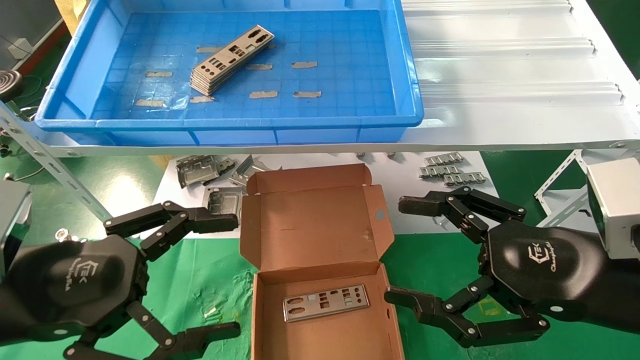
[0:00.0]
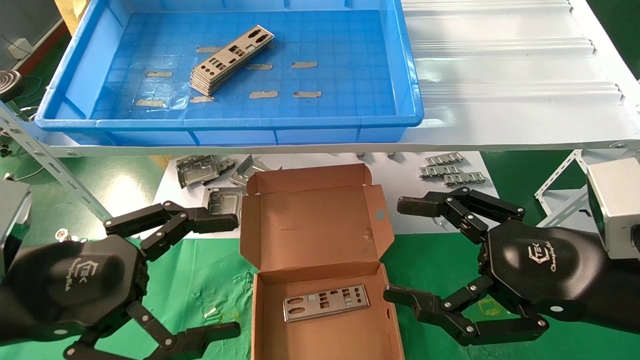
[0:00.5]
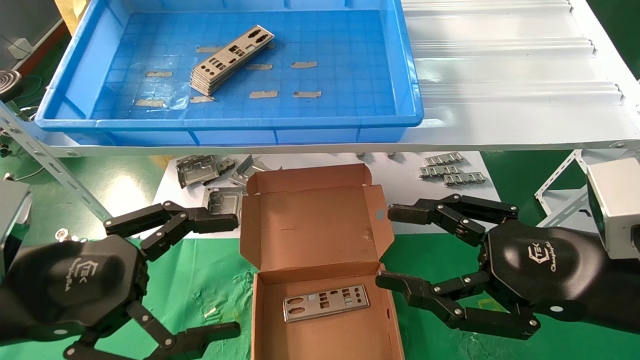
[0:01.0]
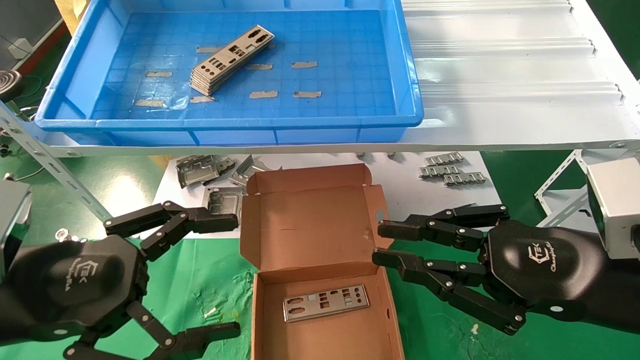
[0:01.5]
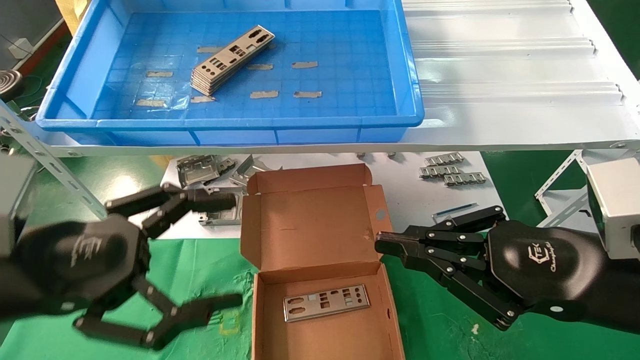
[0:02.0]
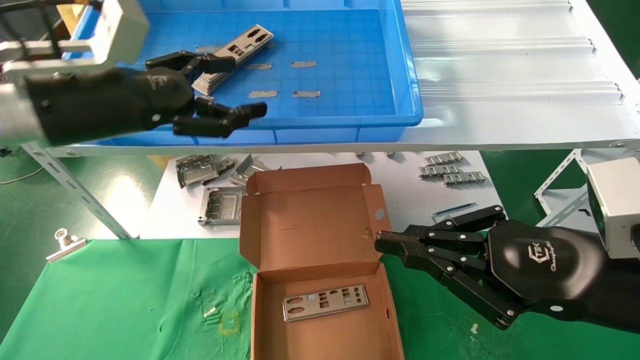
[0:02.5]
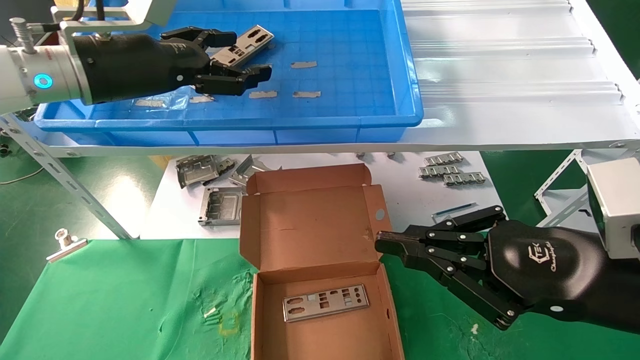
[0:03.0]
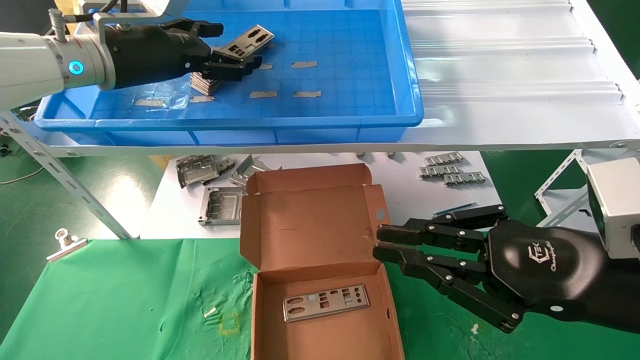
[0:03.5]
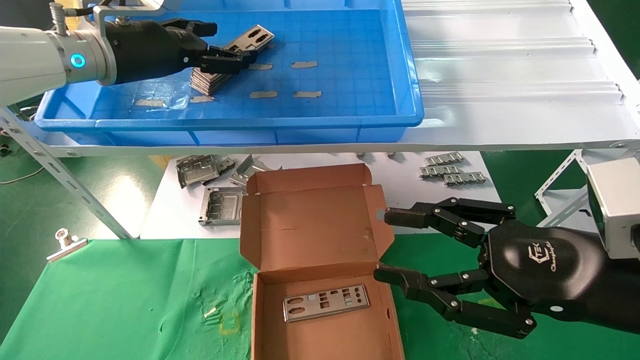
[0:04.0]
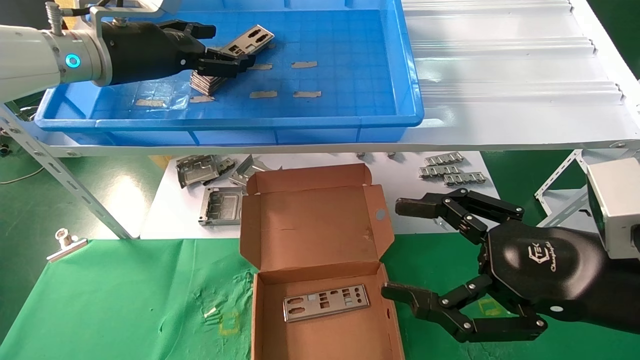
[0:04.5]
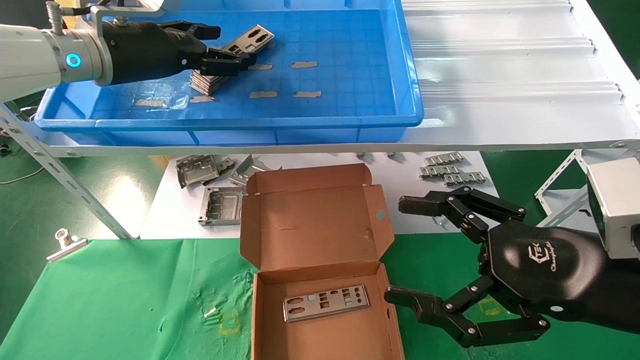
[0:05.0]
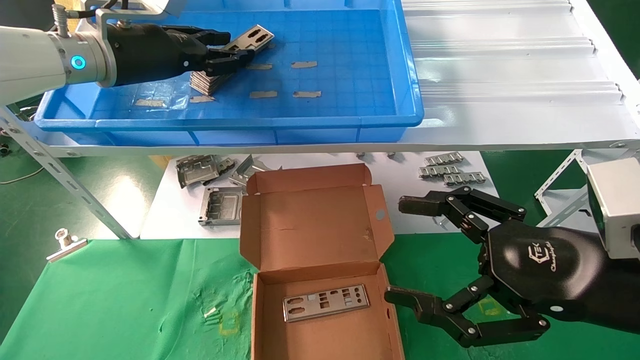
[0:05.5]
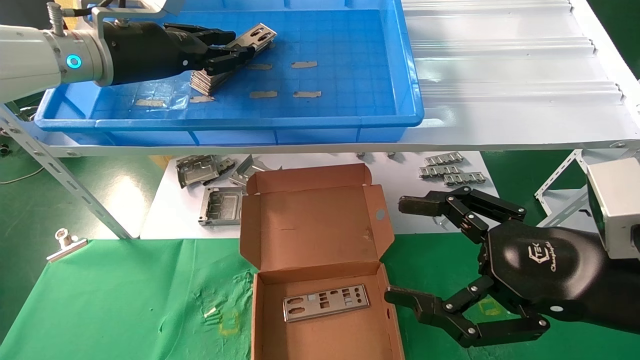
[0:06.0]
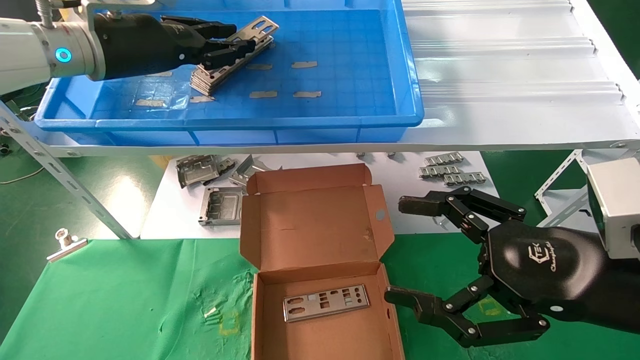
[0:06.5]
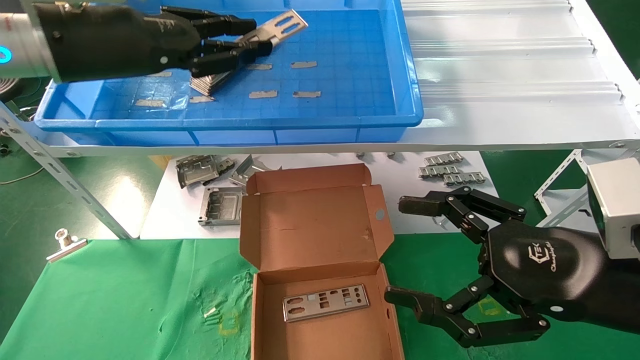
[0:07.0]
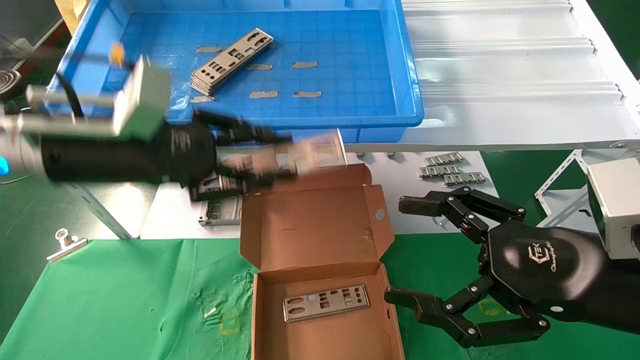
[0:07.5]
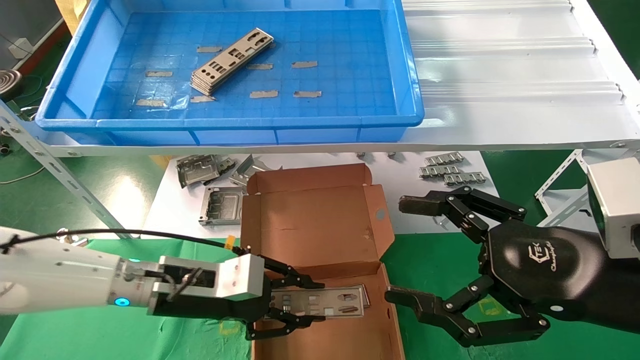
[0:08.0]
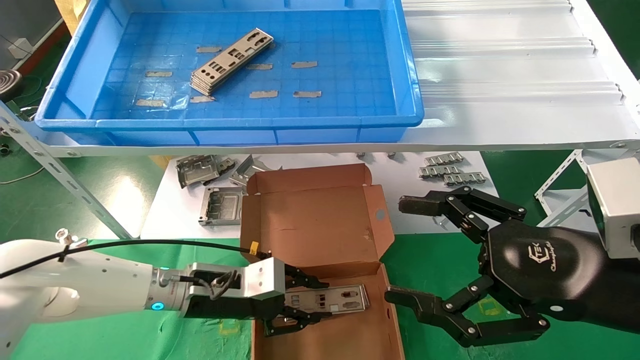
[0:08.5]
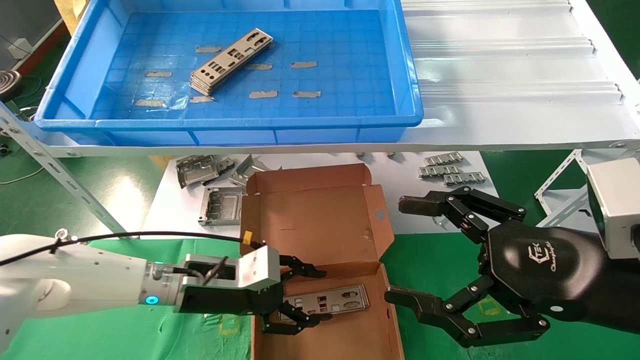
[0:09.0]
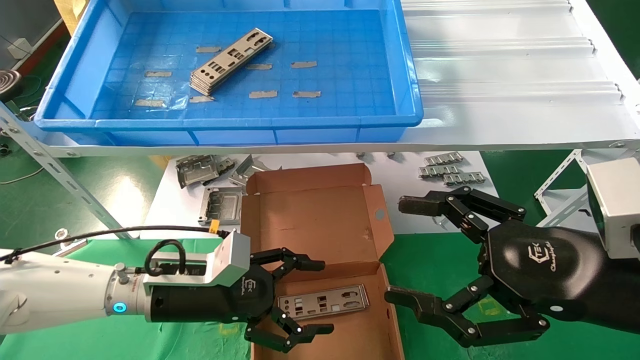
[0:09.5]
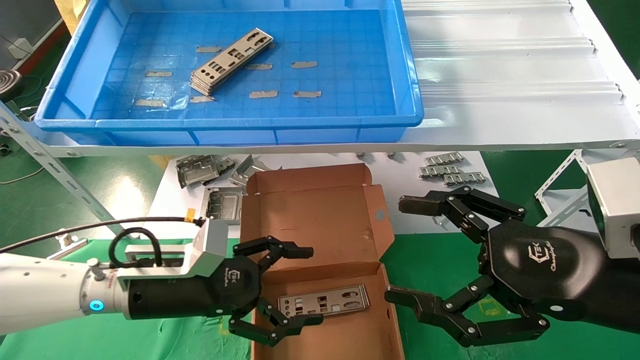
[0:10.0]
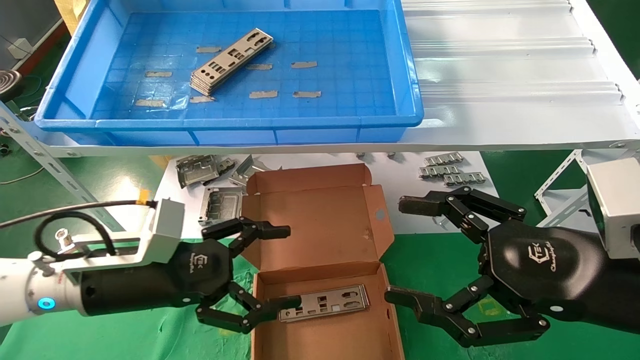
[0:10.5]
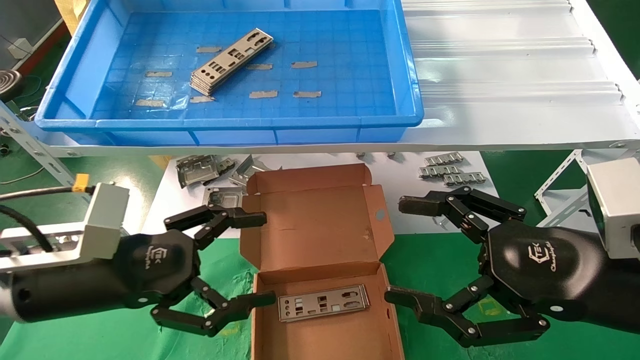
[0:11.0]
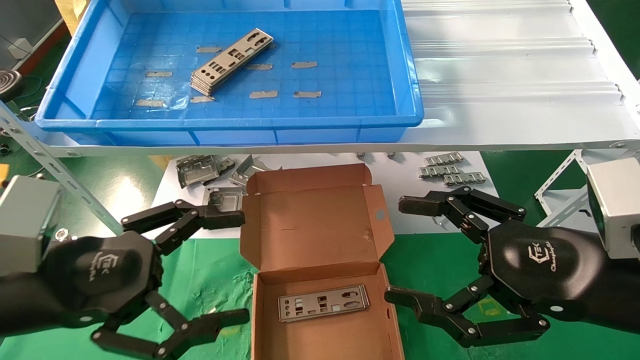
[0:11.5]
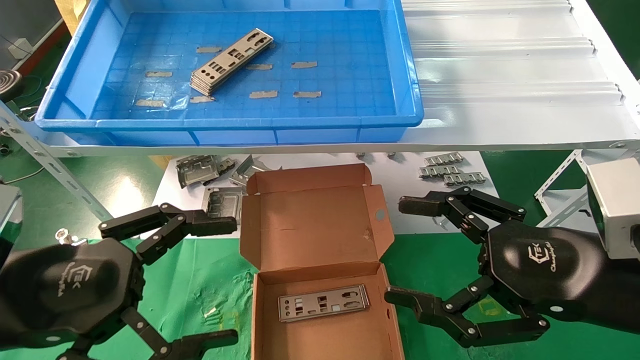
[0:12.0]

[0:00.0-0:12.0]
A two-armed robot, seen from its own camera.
Task of the whole recording: pick up the parts on the tray and put them in the cardboard box.
Step, 0:02.5 to 0:06.0: Pick up the IO bracket from the container box.
Step, 0:06.5 to 0:08.5: Place the IO bracket into the ingredient slot.
0:00.0 to 0:02.0: The right gripper closes.
0:02.0 to 0:04.0: The left gripper travels forward and upward by roughly 25 cm.
0:04.0 to 0:06.0: The right gripper opens its fingers; the left gripper closes.
0:06.0 to 0:08.0: The left gripper travels downward by about 25 cm.
0:08.0 to 0:10.0: The left gripper opens up.
0:10.0 to 0:12.0: The left gripper goes approximately 20 cm backward, upward and to the left.

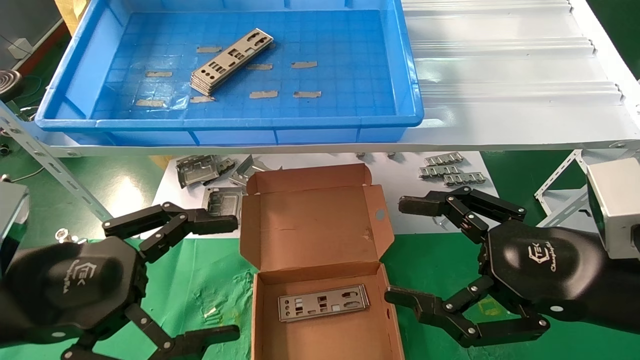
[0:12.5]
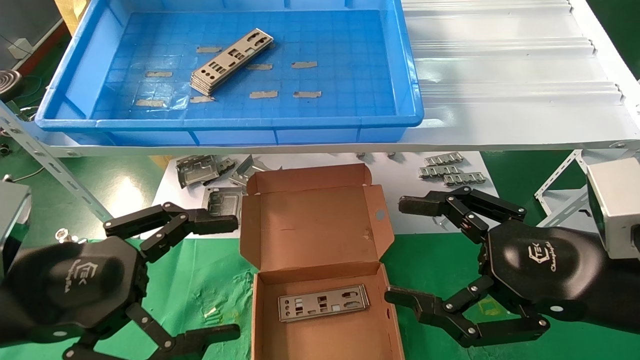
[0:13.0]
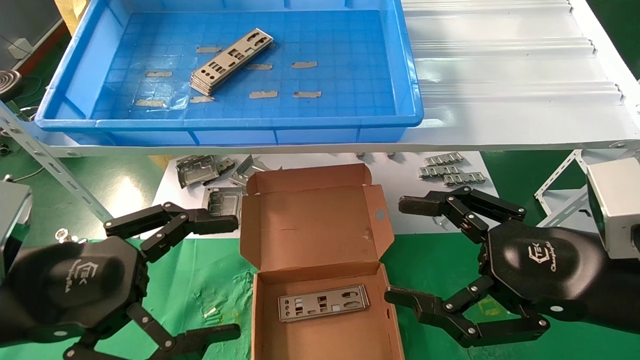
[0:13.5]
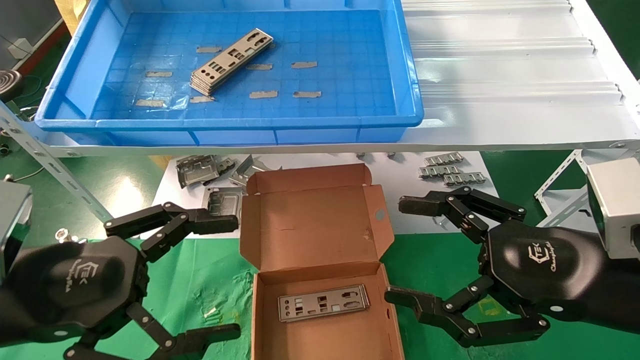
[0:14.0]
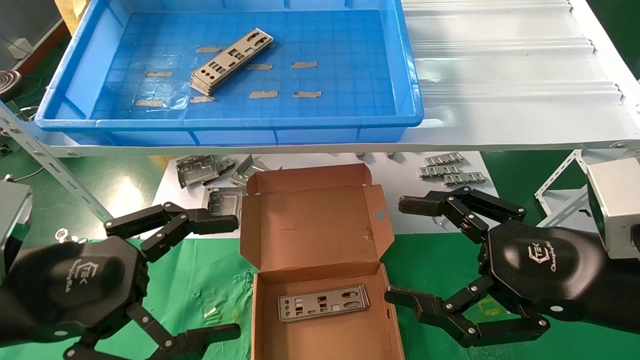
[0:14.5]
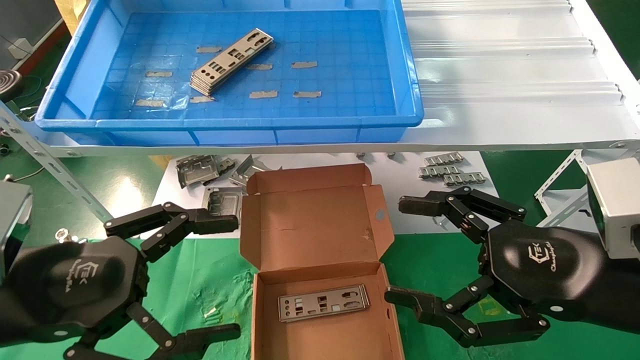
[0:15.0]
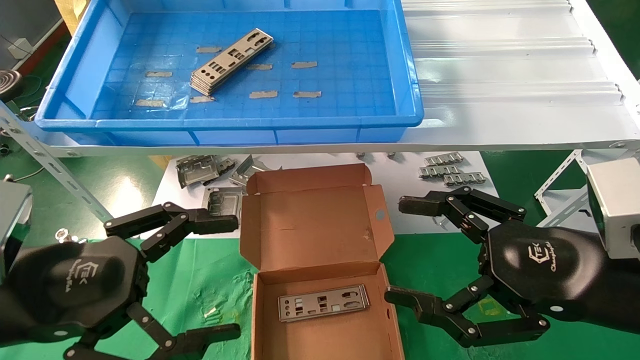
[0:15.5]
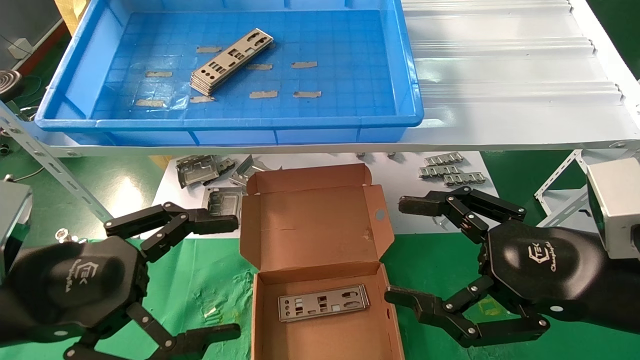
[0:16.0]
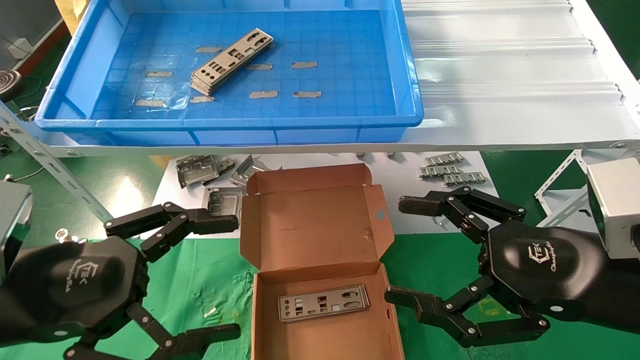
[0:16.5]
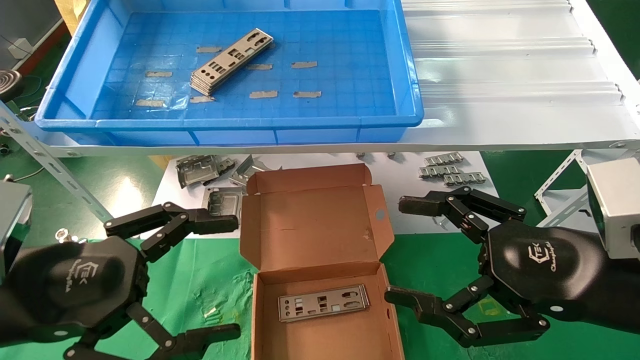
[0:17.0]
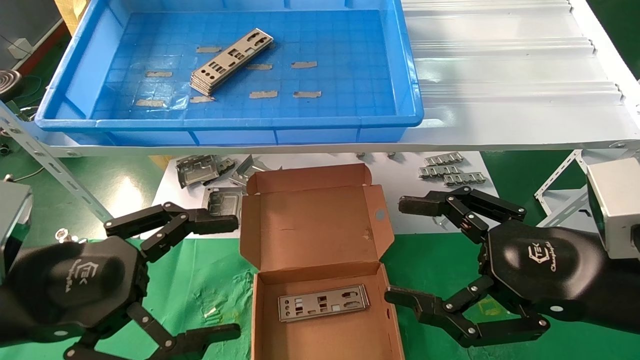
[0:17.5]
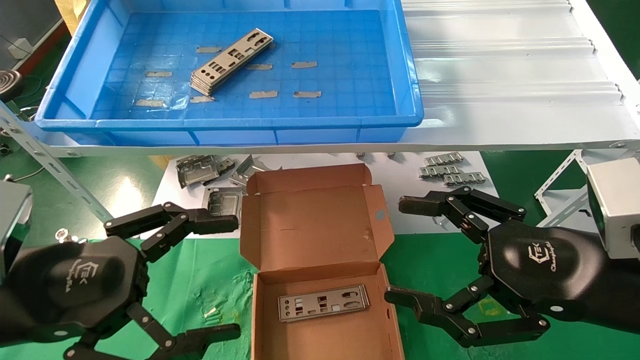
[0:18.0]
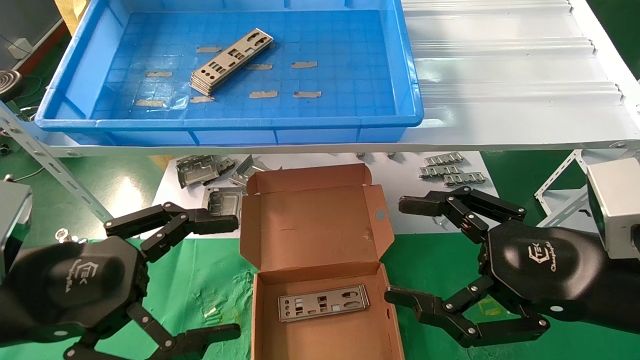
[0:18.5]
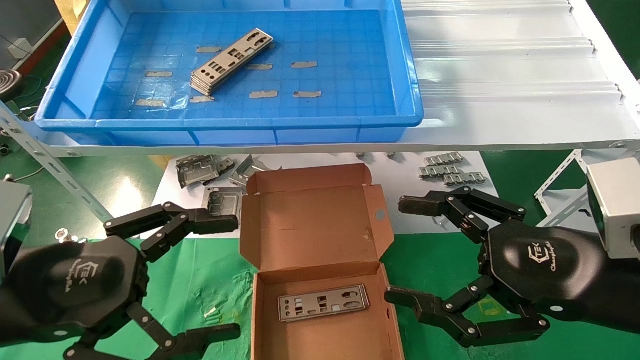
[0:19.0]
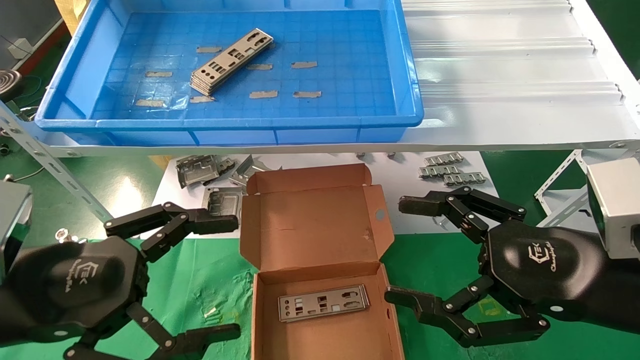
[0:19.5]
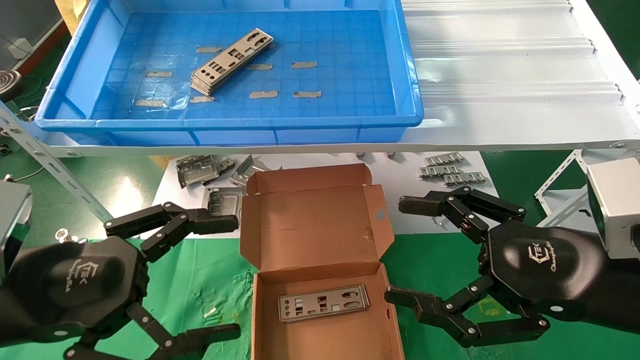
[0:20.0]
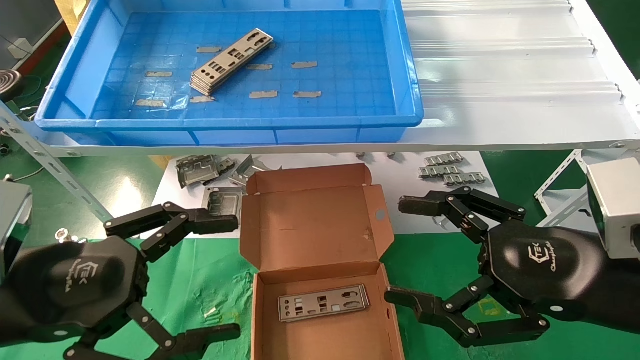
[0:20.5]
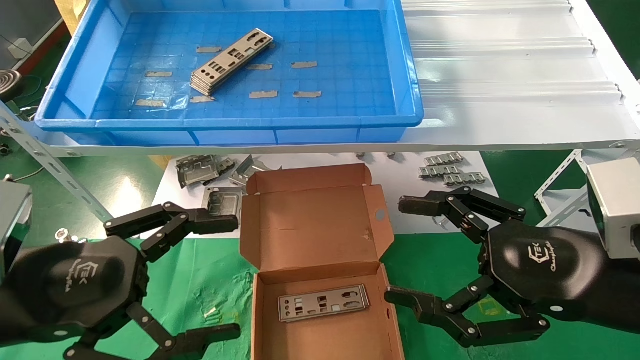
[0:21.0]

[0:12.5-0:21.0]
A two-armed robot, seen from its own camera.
Task of the whole recording: pick up the parts on the tray and put them in the cardboard box.
0:12.5 to 0:21.0: Both grippers stay put.
